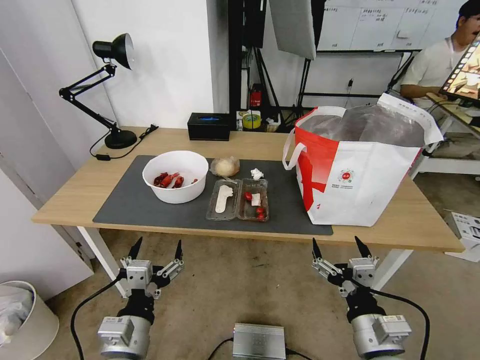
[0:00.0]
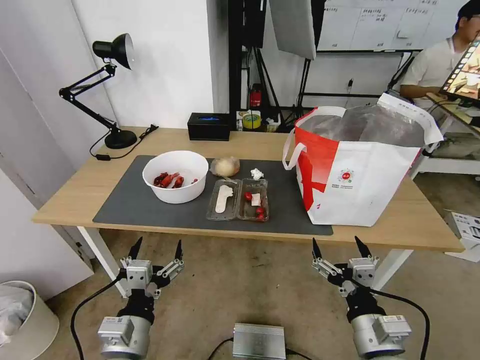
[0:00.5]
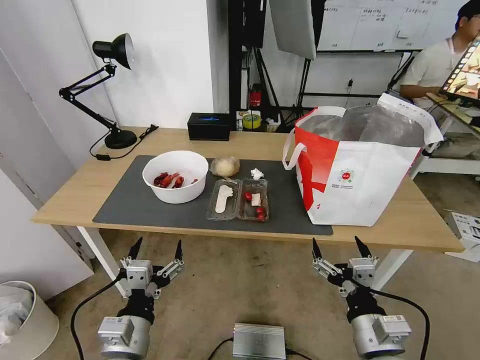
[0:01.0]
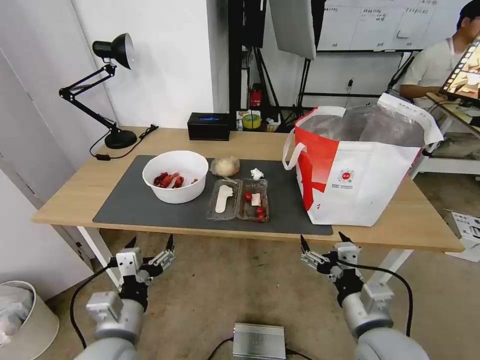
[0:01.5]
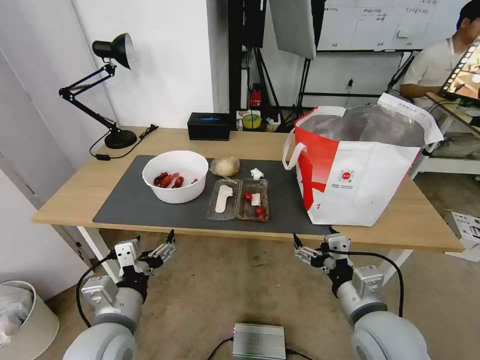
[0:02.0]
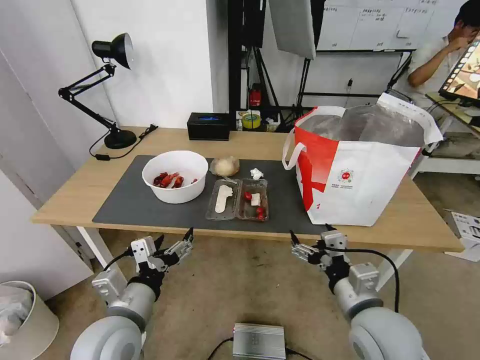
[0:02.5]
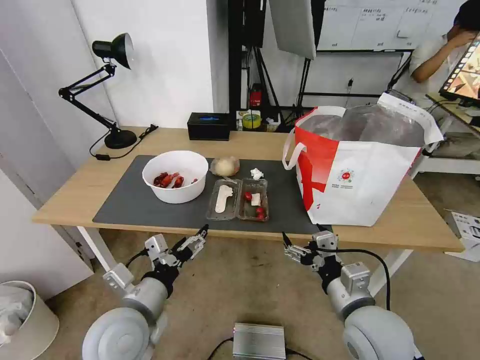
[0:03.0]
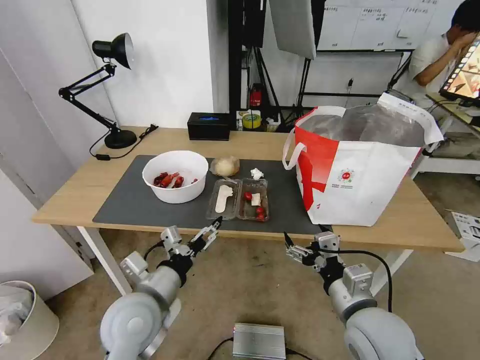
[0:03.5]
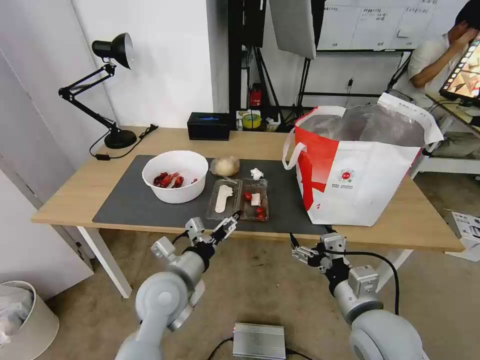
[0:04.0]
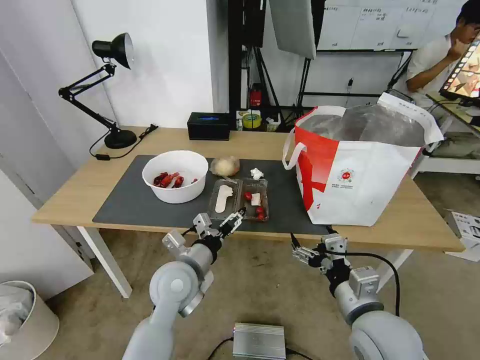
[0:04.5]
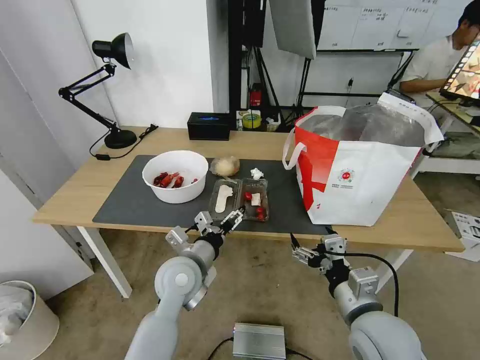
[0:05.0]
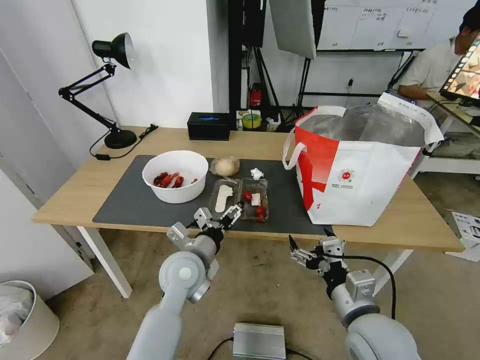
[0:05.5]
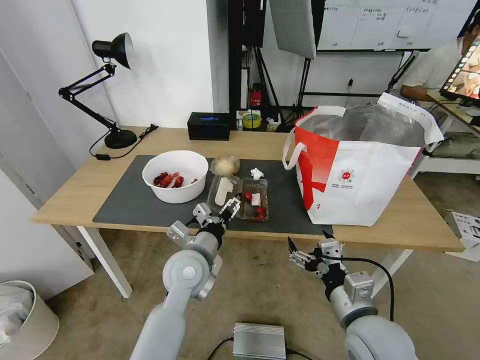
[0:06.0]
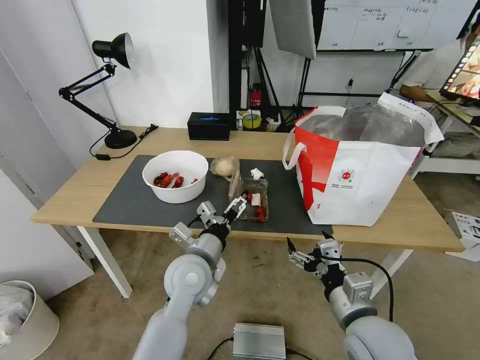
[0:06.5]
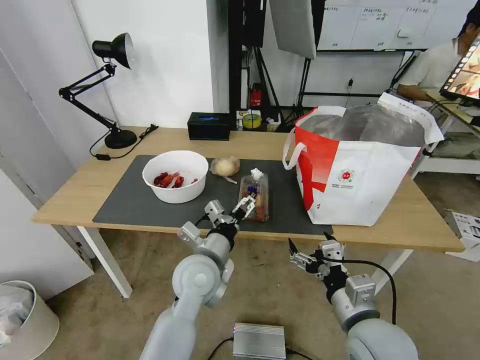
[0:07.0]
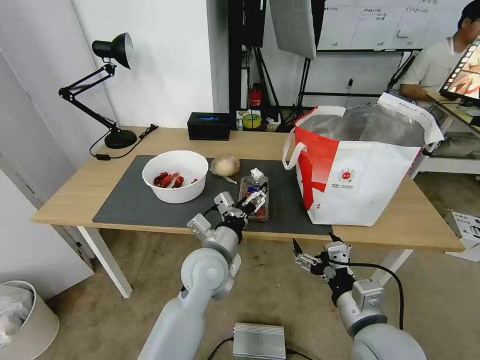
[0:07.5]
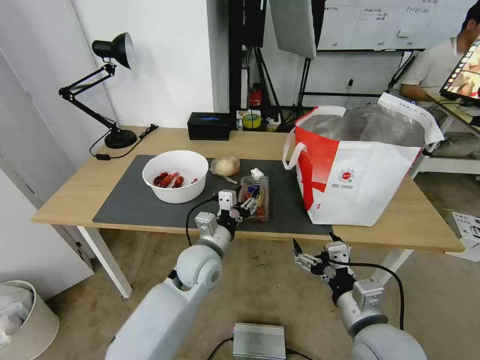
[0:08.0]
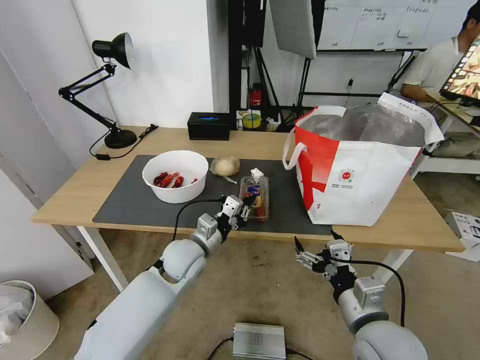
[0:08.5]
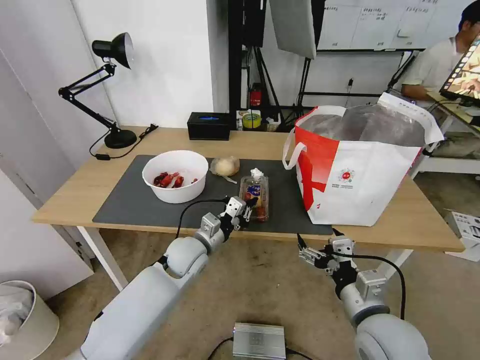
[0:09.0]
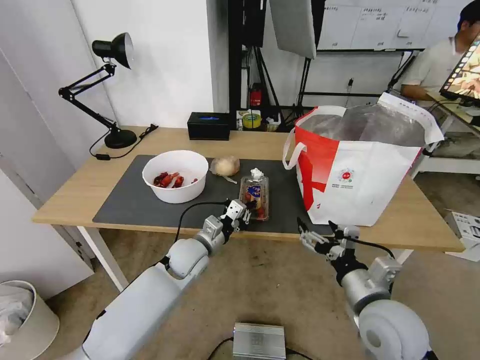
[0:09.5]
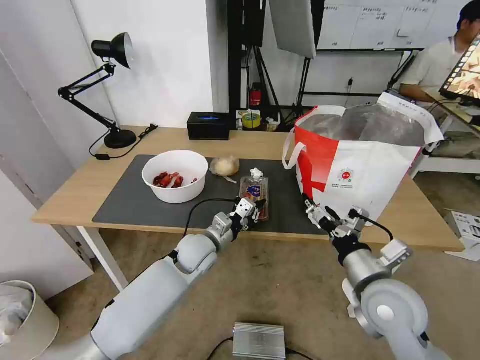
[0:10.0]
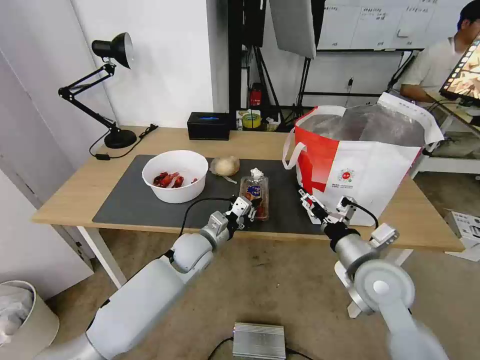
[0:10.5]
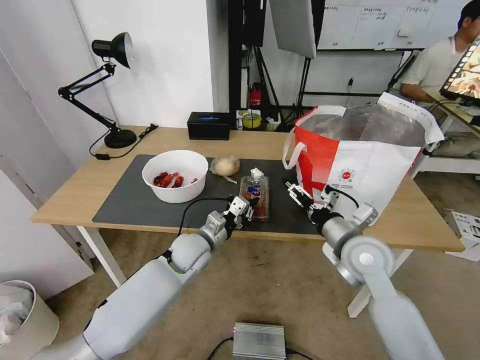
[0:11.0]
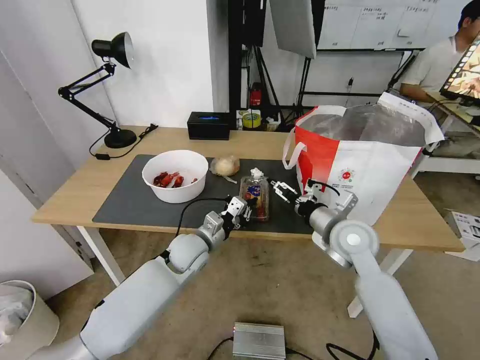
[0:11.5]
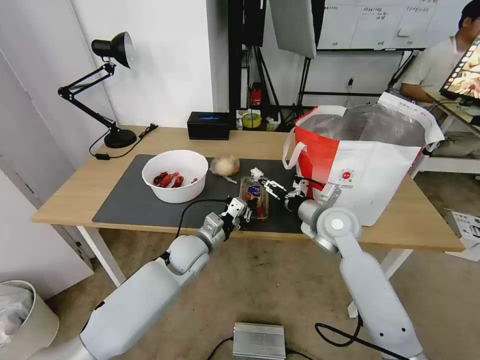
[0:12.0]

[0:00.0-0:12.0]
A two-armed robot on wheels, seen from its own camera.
Task of the whole recording: Pick up the trash from the table and place it into the takeout bag.
0:02.0 to 0:04.0: The left gripper goes about 10 cm forward and to the right.
0:04.0 to 0:06.0: The left gripper shifts by roughly 5 cm.
0:06.0 to 0:08.0: The left gripper closes.
0:08.0 to 0:10.0: Both grippers travel together forward, approximately 5 cm. The left gripper closes up.
0:10.0 to 0:12.0: The right gripper goes about 15 cm forward.

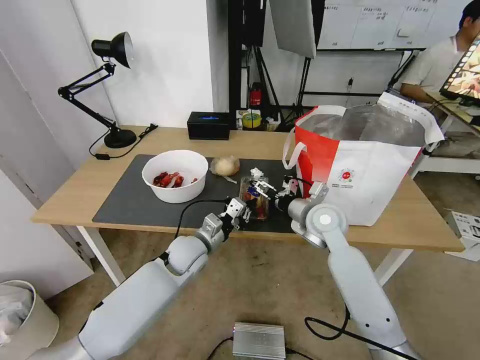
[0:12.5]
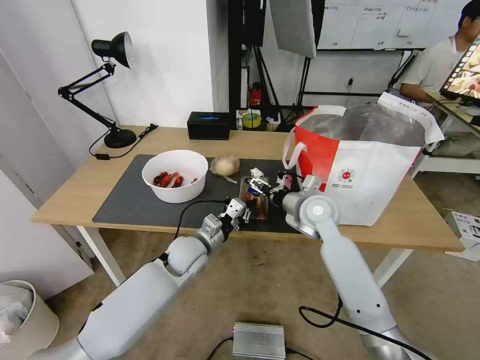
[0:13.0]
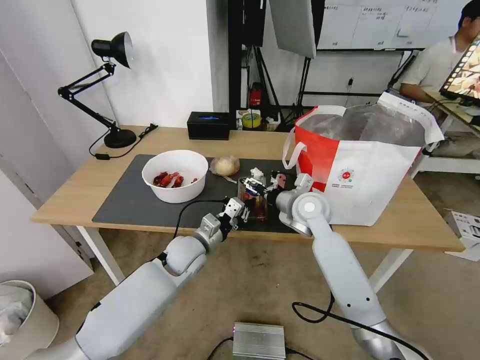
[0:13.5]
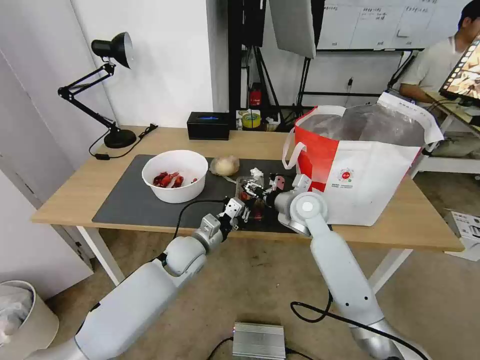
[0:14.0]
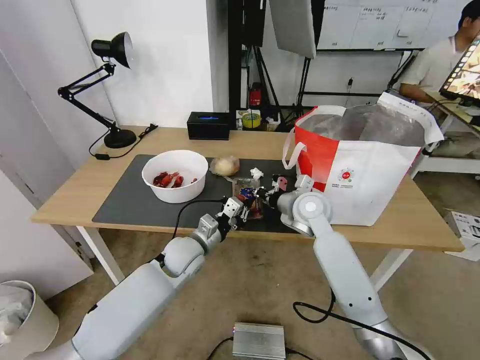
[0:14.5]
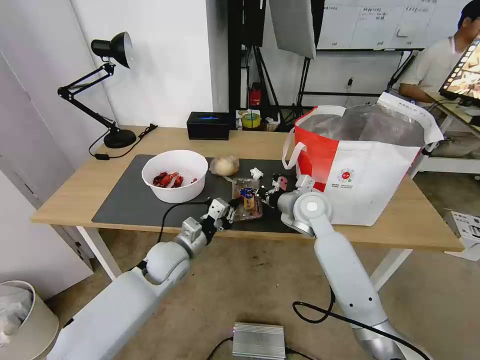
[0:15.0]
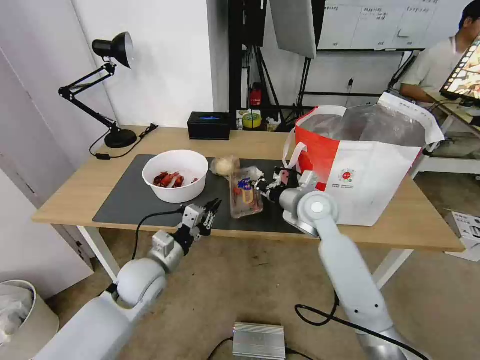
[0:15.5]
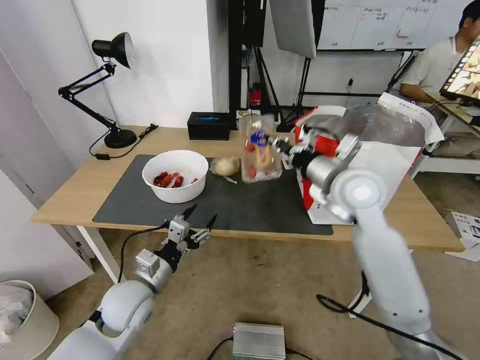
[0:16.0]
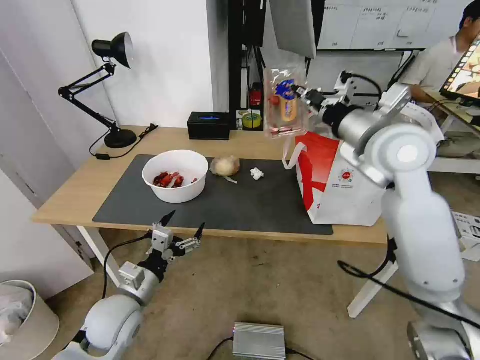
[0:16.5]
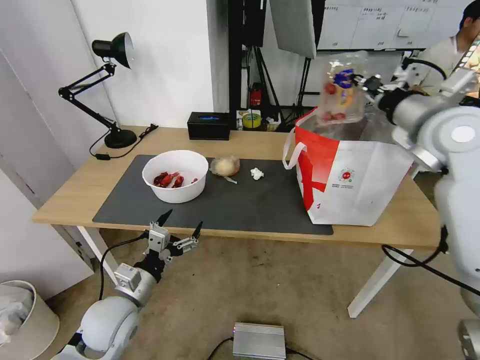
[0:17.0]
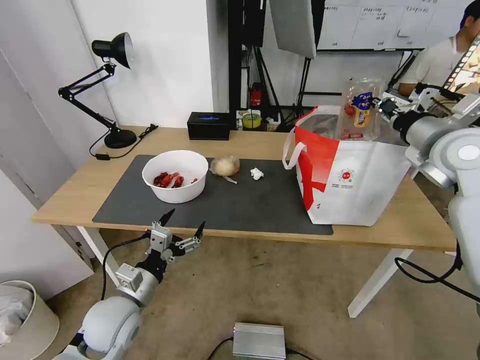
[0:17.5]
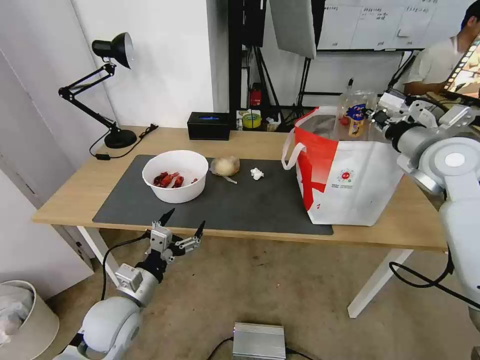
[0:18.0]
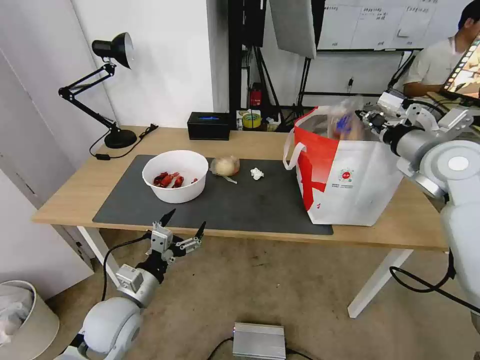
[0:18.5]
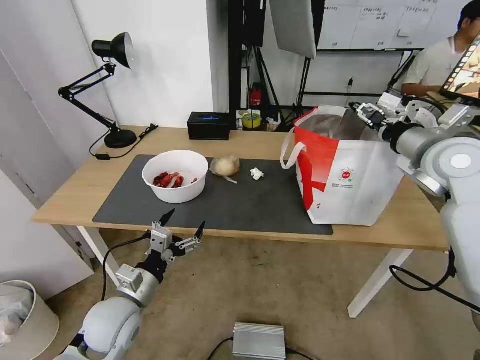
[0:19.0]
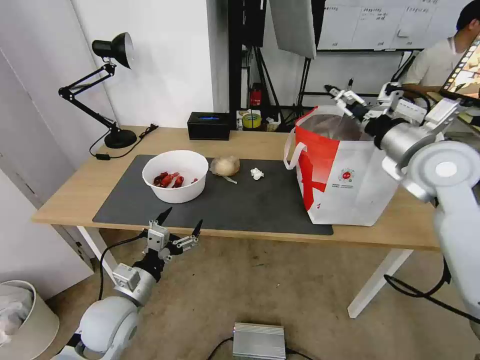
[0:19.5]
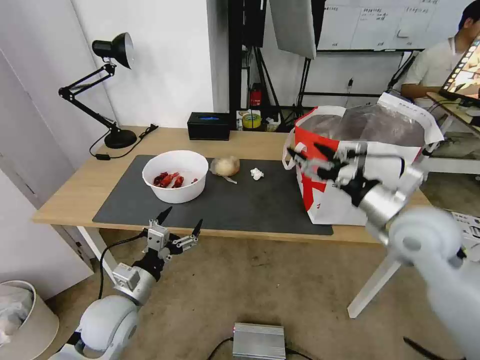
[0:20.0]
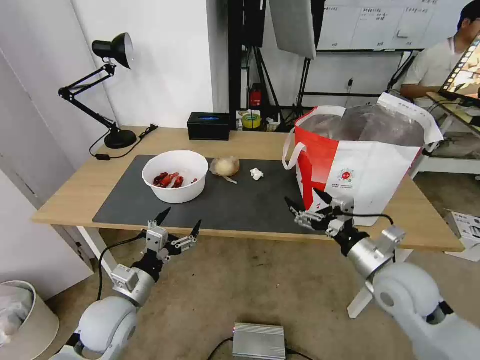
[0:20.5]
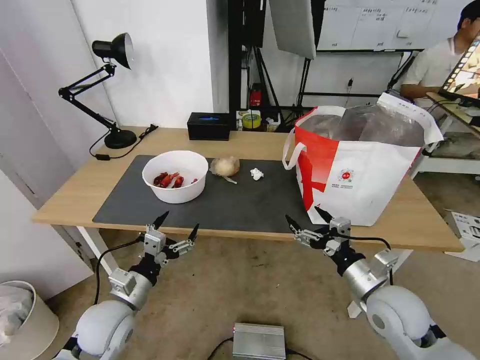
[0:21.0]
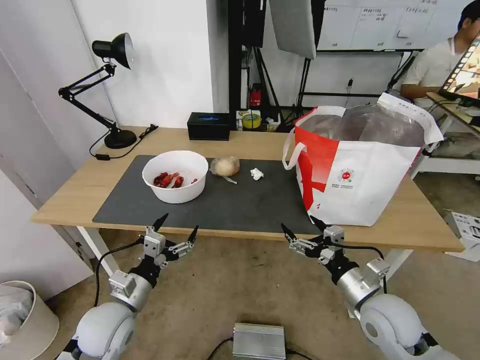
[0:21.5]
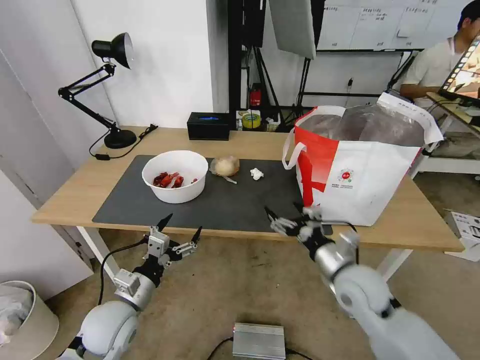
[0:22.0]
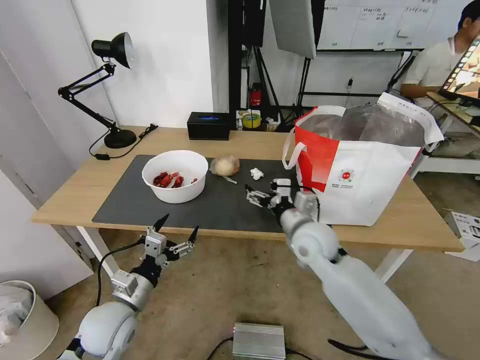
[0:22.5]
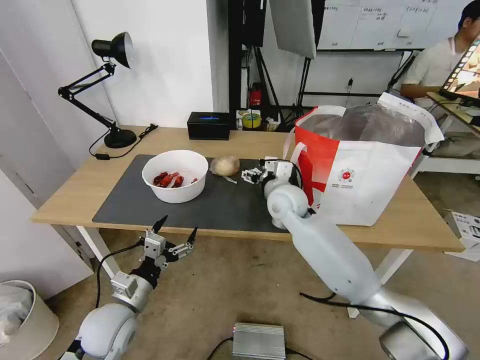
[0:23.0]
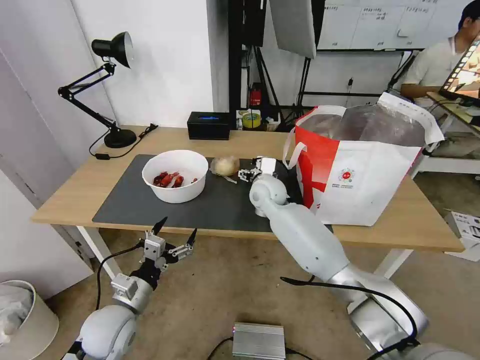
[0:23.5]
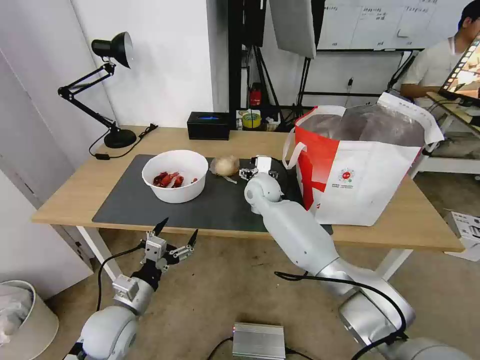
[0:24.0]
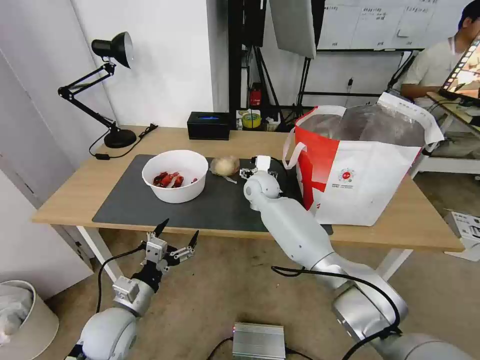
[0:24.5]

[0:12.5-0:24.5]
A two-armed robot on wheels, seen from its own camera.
Task of the whole recording: Pick up the trash from the table and place it into the takeout bag.
0:12.5 to 0:14.5: The right gripper closes its fingers.
0:14.5 to 0:16.5: The left gripper travels backward and to the left by some 20 cm, and opens. The right gripper moves upward and to the right, approximately 25 cm.
0:16.5 to 0:18.5: The right gripper moves to the right, some 10 cm.
0:18.5 to 0:20.5: The right gripper goes roughly 25 cm downward, backward and to the left, and opens.
0:20.5 to 0:22.5: The right gripper heads to the left and forward, covering about 15 cm.
0:22.5 to 0:24.5: The right gripper goes roughly 20 cm forward and to the left.

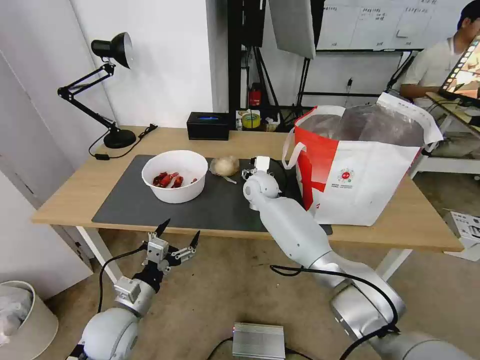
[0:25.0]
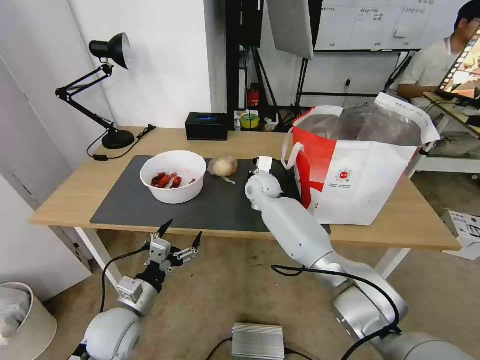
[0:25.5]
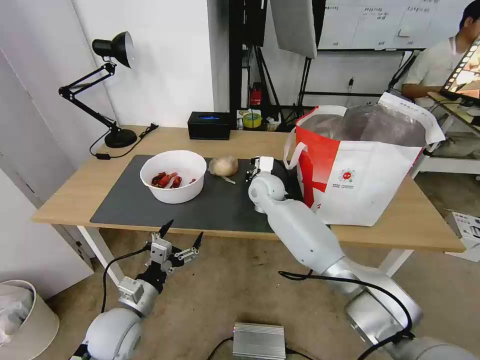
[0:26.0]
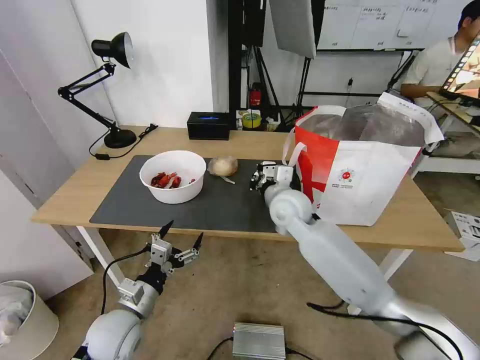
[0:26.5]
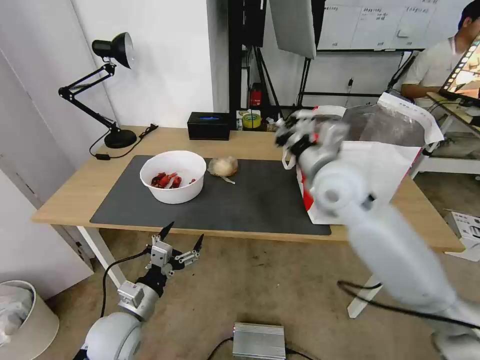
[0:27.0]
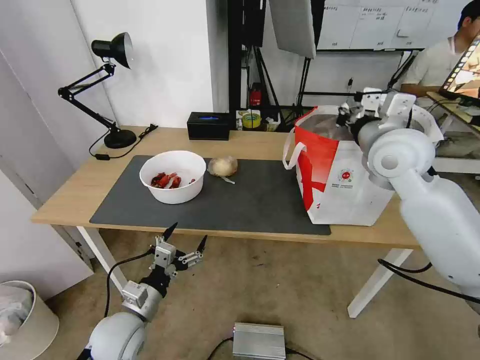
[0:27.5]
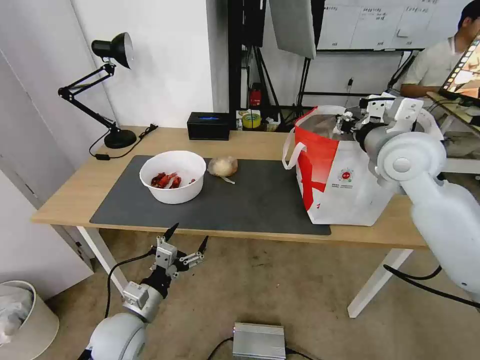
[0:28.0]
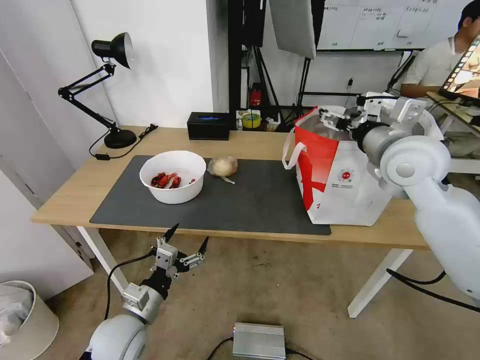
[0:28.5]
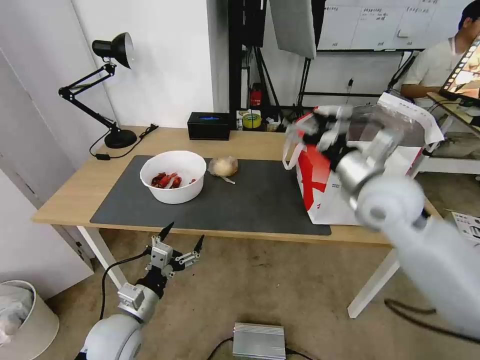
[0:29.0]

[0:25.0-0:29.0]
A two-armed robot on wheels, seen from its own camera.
Task of the whole recording: Pick up the trash from the table and place it into the takeout bag.
0:25.0 to 0:27.0: The right gripper travels backward, upward and to the right by about 25 cm, and closes.
0:27.0 to 0:29.0: The right gripper heads to the right, covering roughly 10 cm, and opens.
